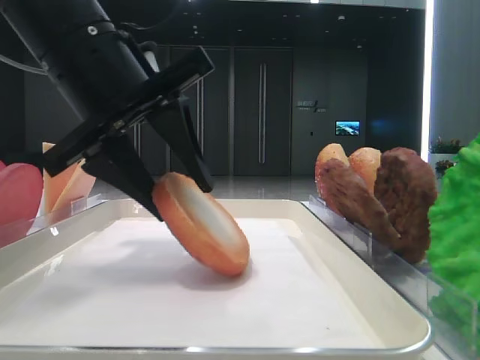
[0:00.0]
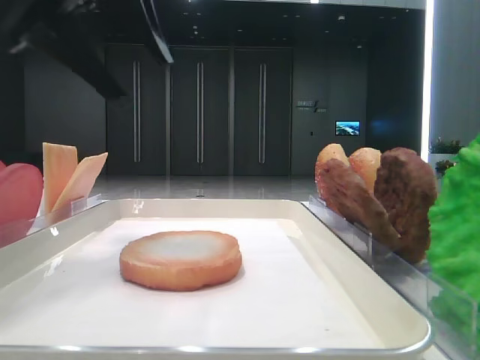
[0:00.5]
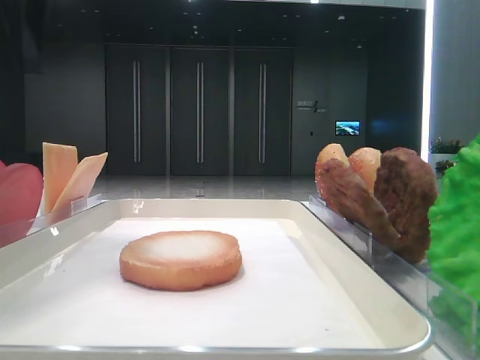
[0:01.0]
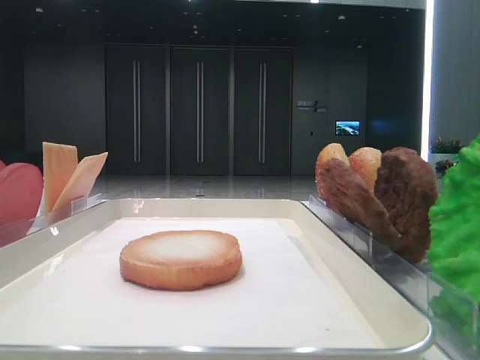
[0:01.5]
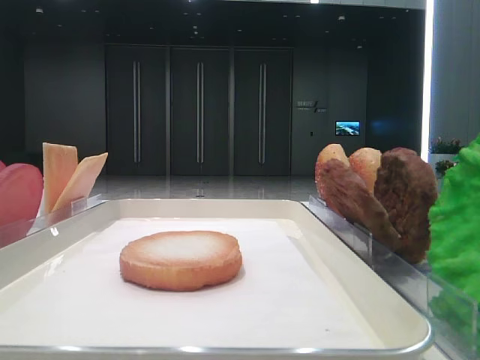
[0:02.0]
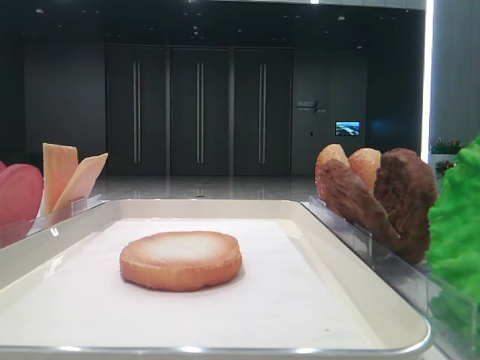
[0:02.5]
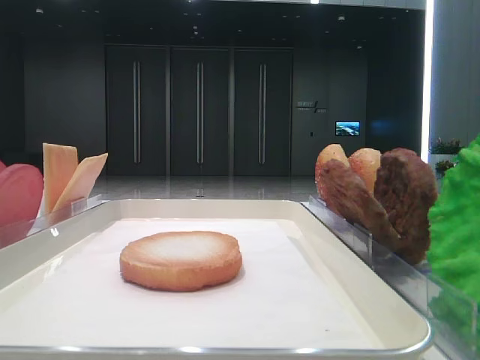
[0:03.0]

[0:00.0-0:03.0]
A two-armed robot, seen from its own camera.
0:00.0 to 0:01.5: The left gripper travels to the left and upward by roughly 25 cm.
0:01.5 to 0:03.0: The left gripper travels backward by some 30 cm.

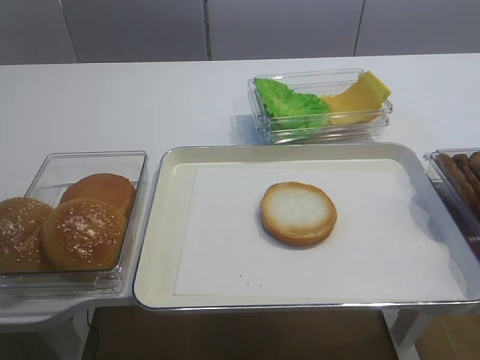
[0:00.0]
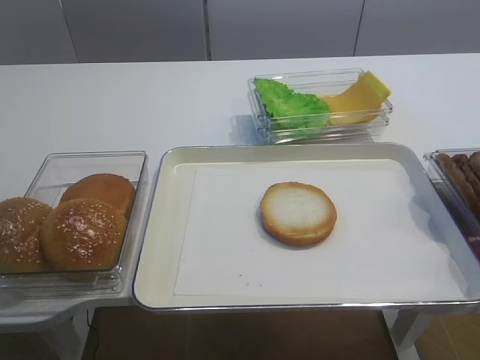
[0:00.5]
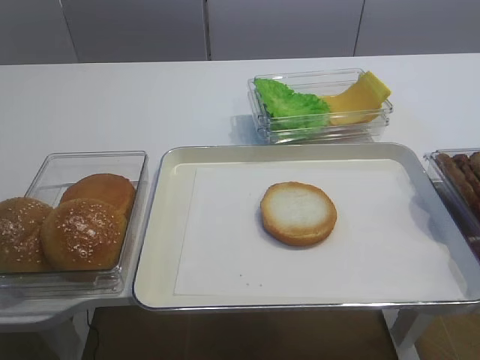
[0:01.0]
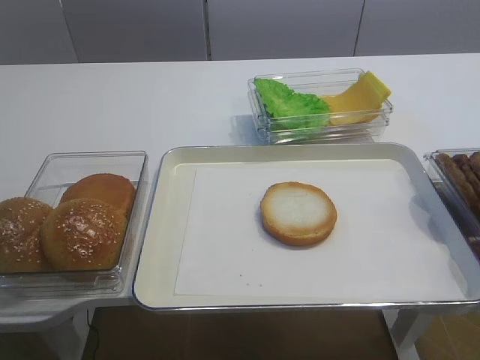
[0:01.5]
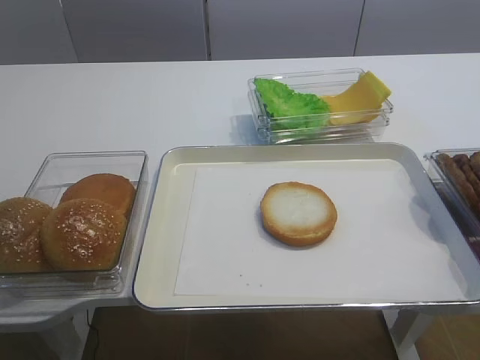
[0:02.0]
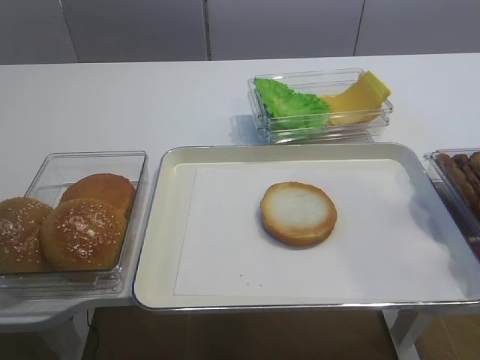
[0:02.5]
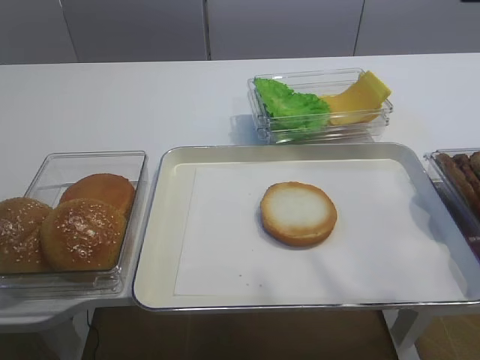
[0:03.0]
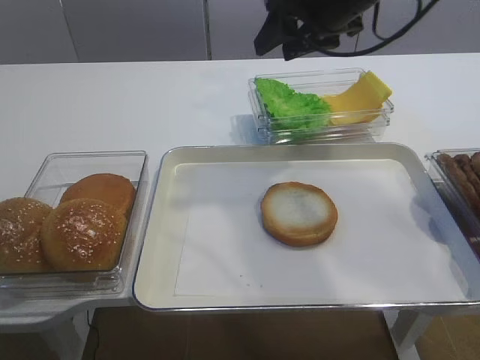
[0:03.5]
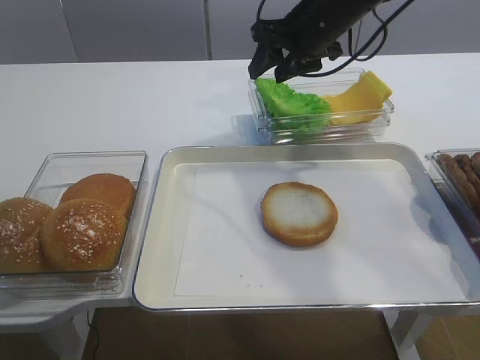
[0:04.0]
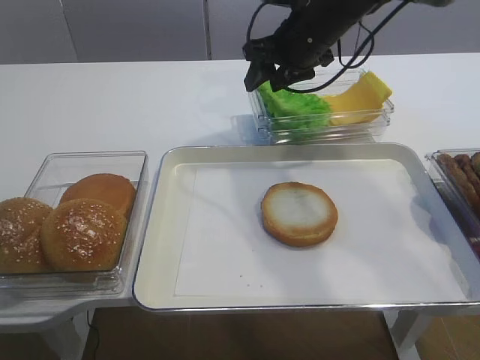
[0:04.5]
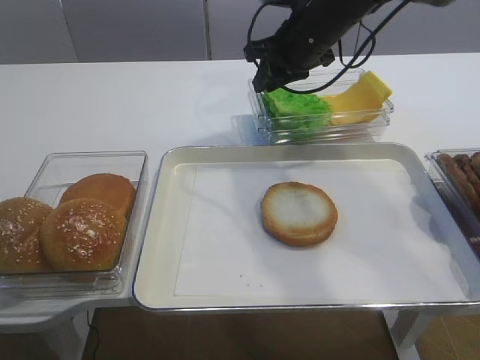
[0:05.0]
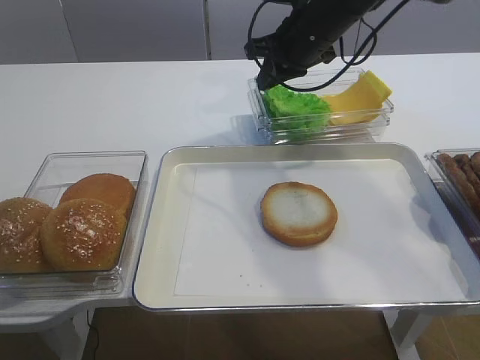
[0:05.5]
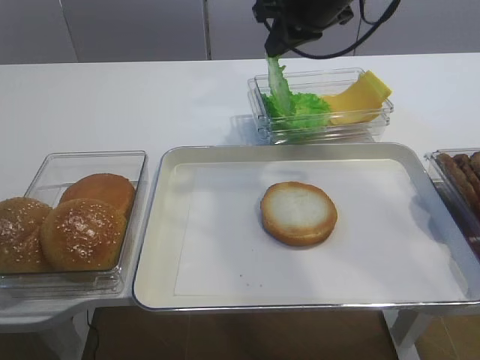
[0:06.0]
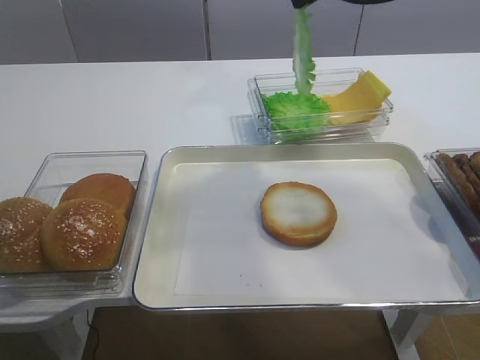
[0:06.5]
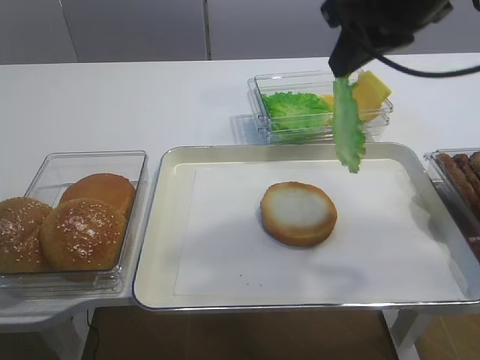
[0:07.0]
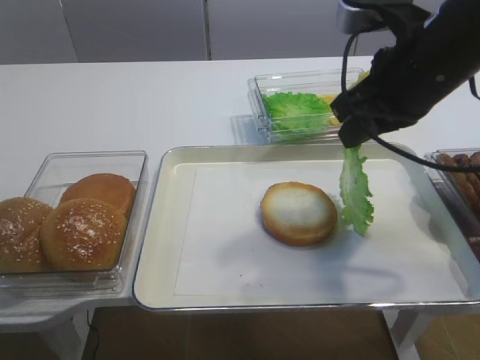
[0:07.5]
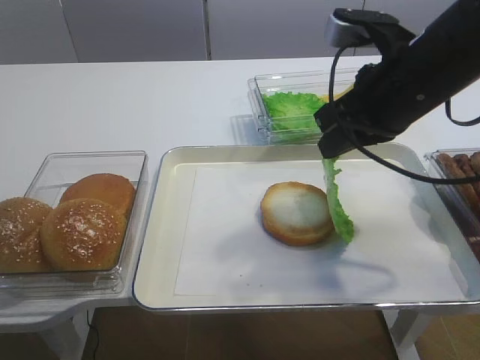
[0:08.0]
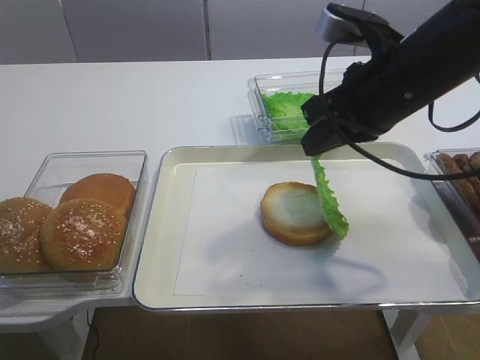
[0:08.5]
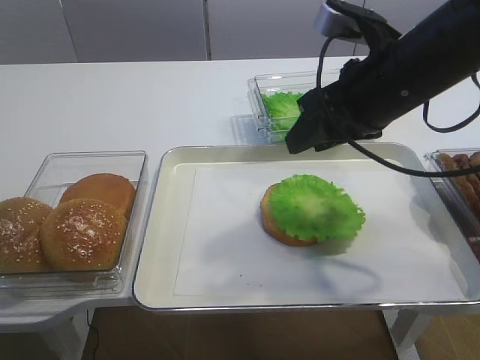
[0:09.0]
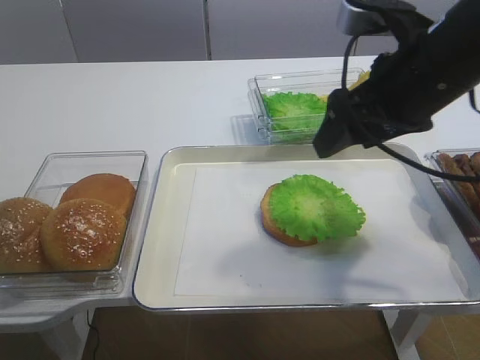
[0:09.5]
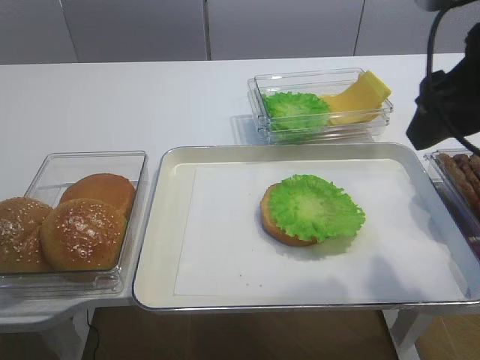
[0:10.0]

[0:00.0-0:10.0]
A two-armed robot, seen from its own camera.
Step, 0:00.0 to 0:05.5: Pick up the lettuce leaf with the right gripper.
Step, 0:06.0 to 0:09.0: Place the lettuce leaf on the bread slice with the right gripper.
0:02.0 to 0:04.0: The right gripper moves forward, approximately 50 cm.
0:04.0 to 0:06.0: The right gripper closes.
0:06.0 to 0:08.0: The right gripper moves backward, some 15 cm.
0:08.0 to 0:10.0: The right gripper goes approximately 10 cm backward and upward, and opens.

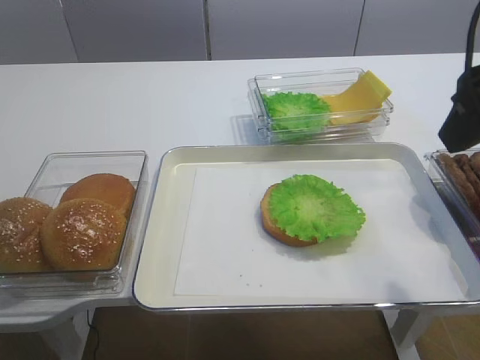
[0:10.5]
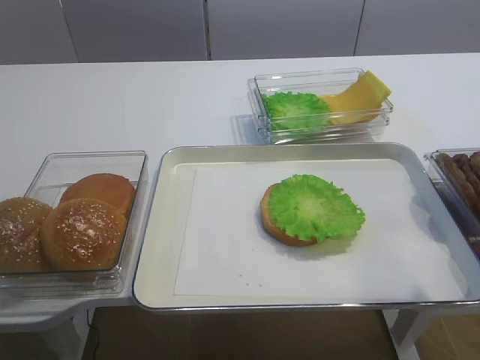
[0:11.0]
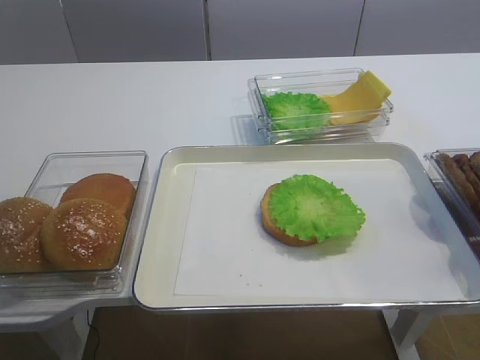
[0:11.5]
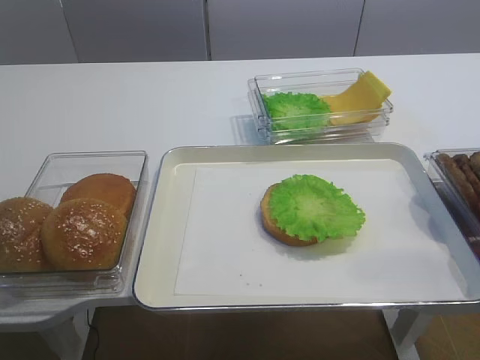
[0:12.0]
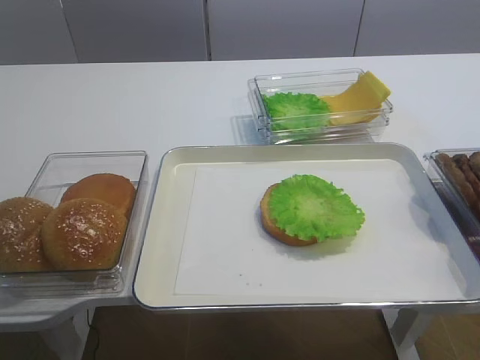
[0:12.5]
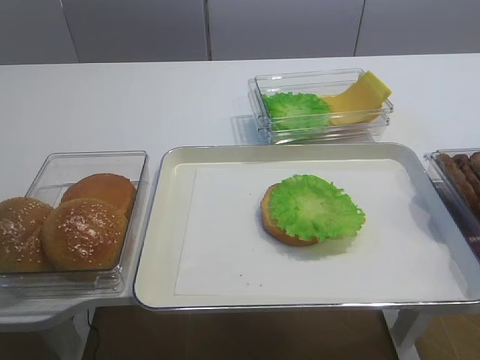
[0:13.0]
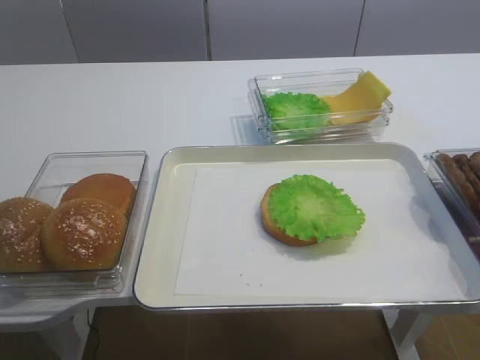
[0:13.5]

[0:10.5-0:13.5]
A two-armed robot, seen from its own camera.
0:10.5 to 0:12.0: The right gripper goes some 20 cm backward.

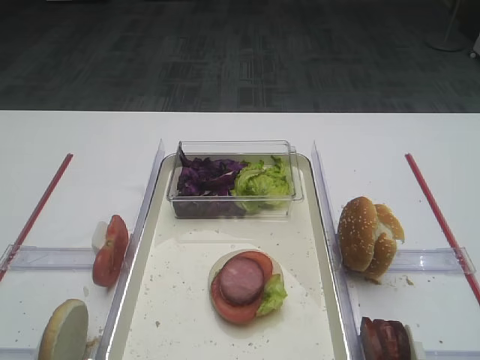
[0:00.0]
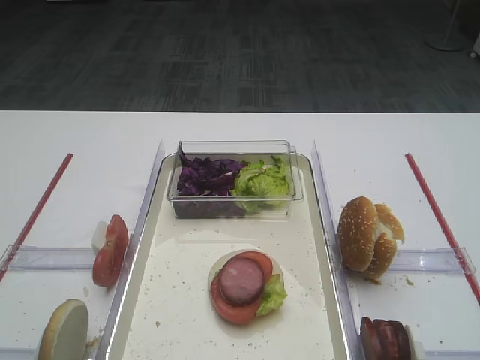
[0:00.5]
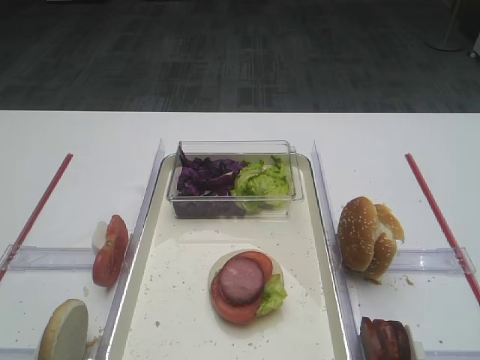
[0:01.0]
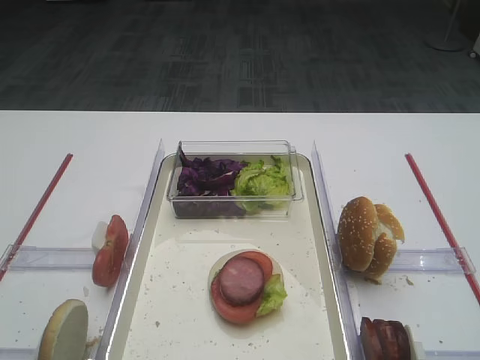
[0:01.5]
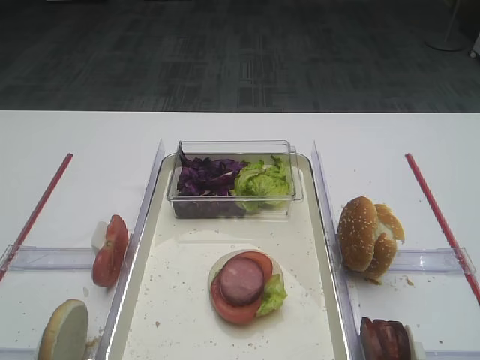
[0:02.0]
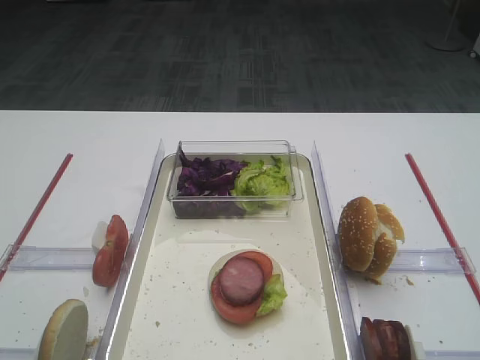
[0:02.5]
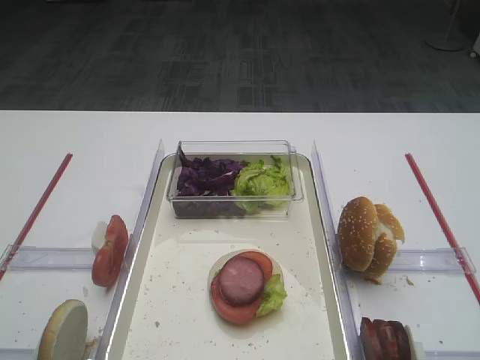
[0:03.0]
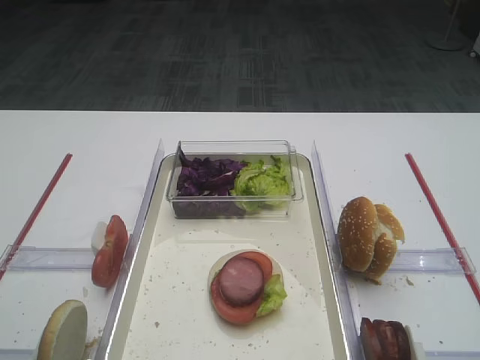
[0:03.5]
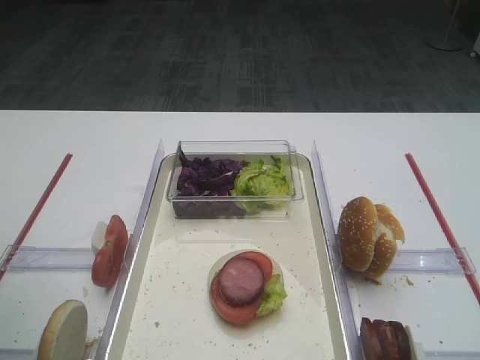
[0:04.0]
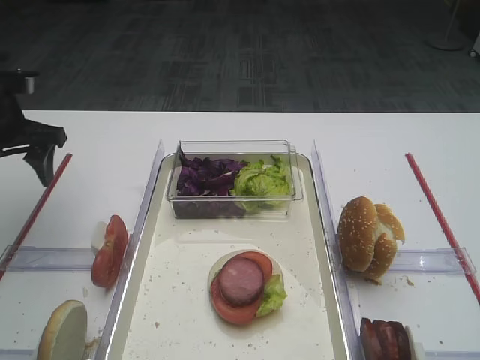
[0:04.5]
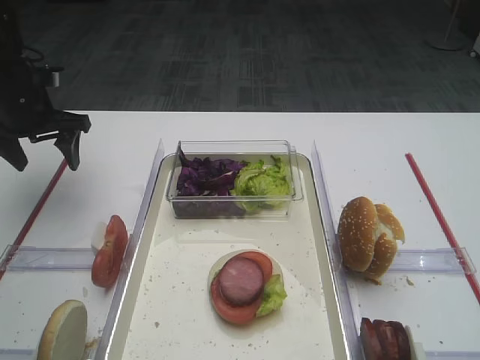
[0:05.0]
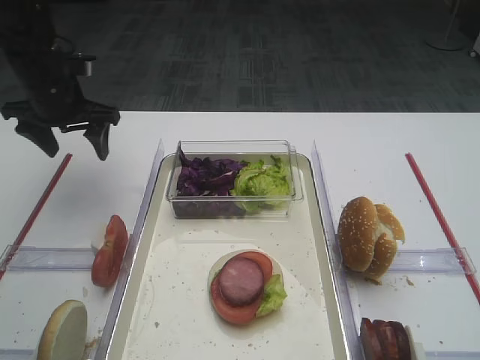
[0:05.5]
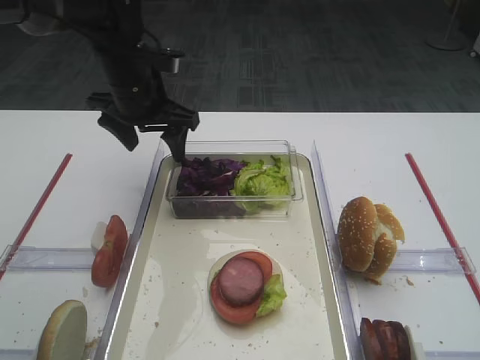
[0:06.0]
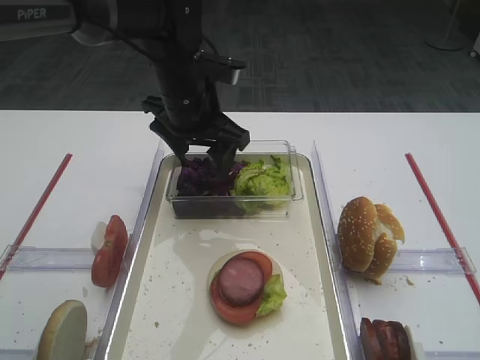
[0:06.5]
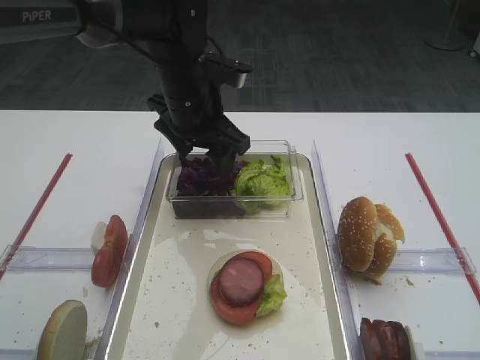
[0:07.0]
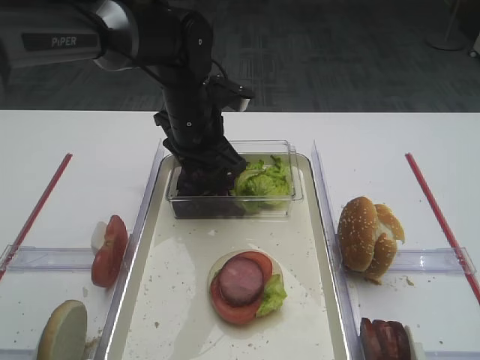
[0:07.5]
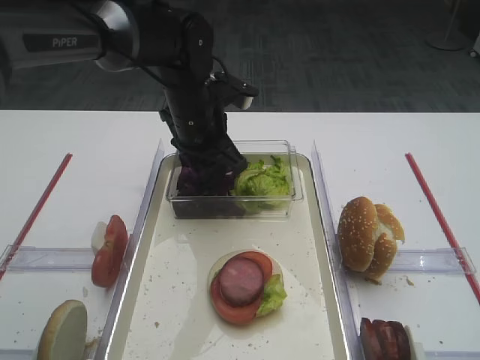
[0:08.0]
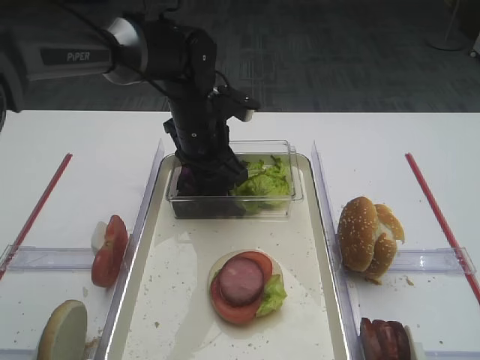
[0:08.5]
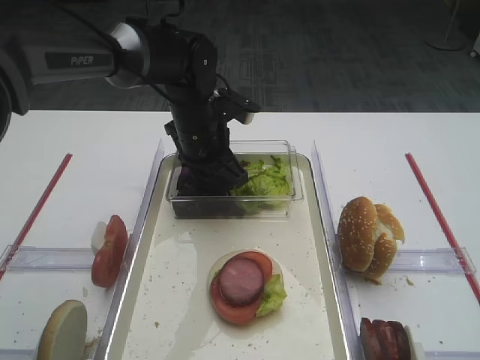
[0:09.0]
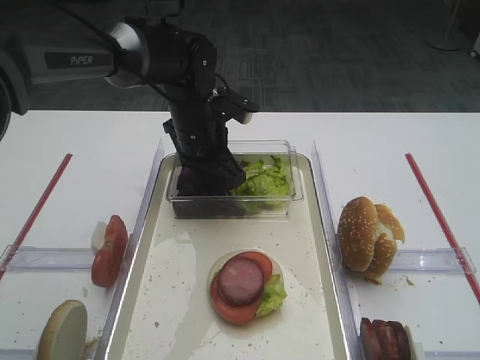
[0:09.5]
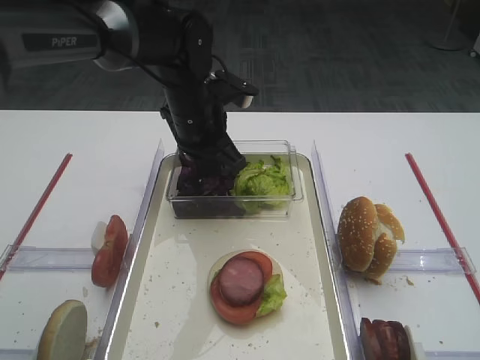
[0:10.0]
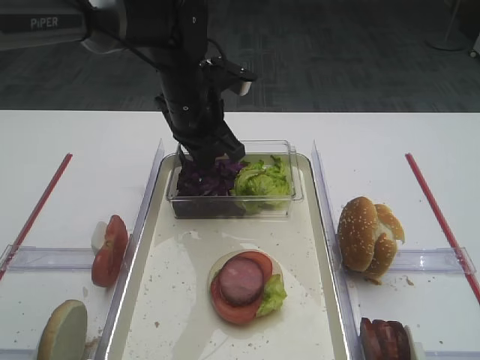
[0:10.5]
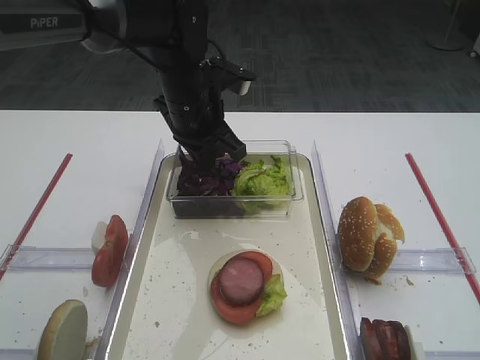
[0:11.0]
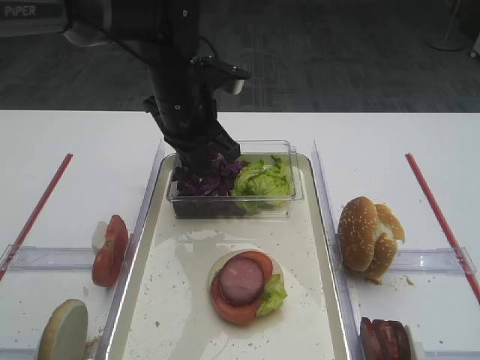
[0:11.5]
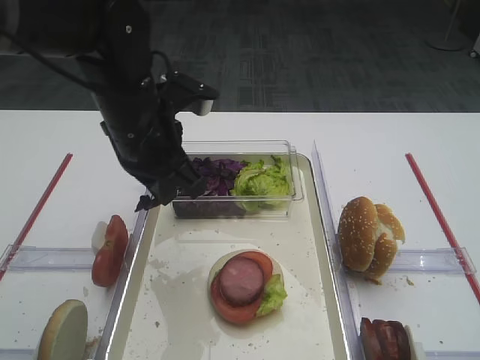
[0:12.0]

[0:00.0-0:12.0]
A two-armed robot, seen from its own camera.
Step, 0:00.0 to 0:11.0: Pick up the purple cabbage with the left gripper.
0:02.0 to 0:04.0: The left gripper moves forward, roughly 20 cm.
0:04.0 to 0:06.0: The left gripper moves forward and to the right, roughly 30 cm.
0:06.0 to 0:08.0: The left gripper travels to the right by approximately 10 cm, and closes its fingers.
0:10.0 to 0:12.0: The left gripper moves backward, some 10 cm.
